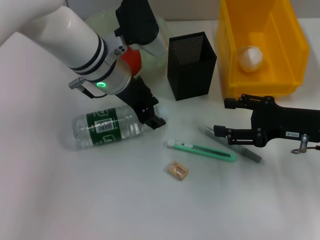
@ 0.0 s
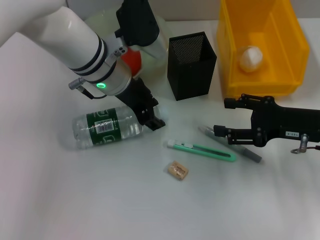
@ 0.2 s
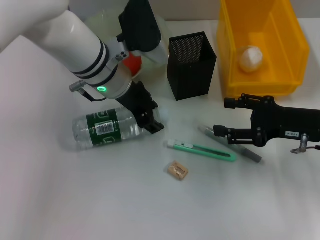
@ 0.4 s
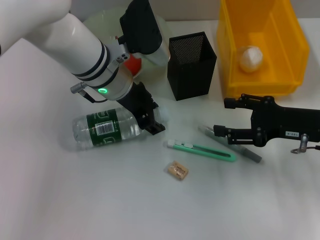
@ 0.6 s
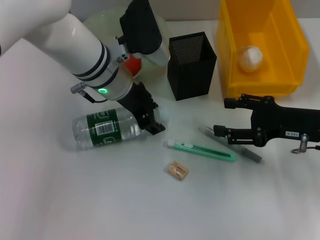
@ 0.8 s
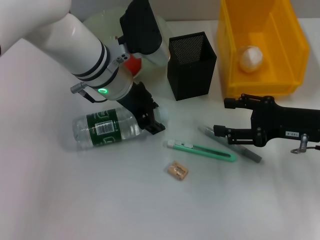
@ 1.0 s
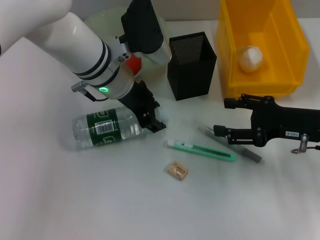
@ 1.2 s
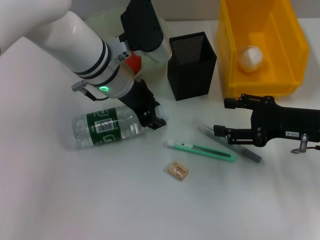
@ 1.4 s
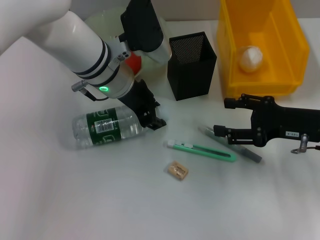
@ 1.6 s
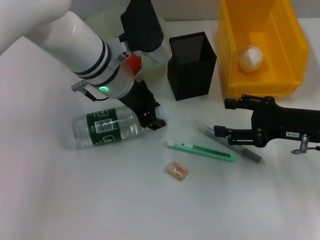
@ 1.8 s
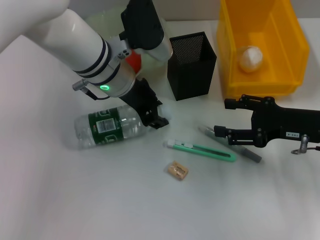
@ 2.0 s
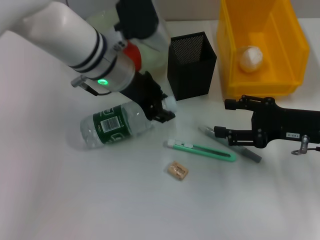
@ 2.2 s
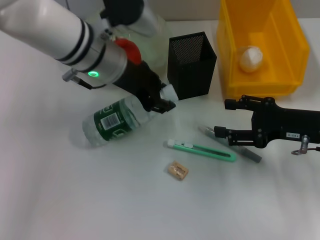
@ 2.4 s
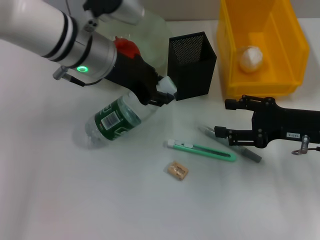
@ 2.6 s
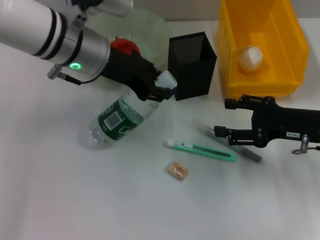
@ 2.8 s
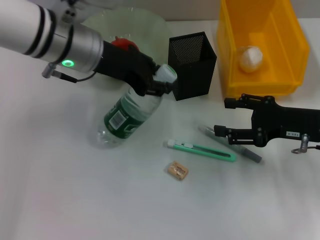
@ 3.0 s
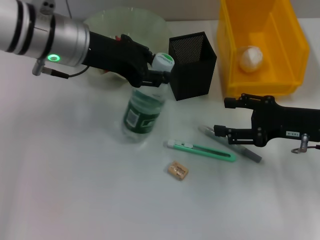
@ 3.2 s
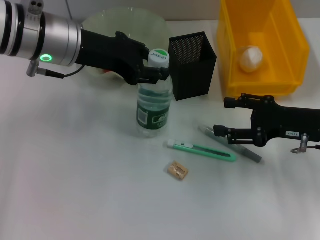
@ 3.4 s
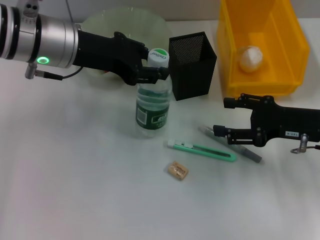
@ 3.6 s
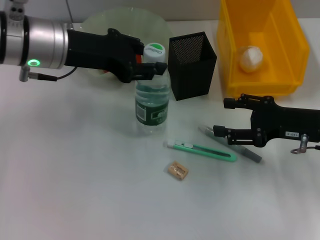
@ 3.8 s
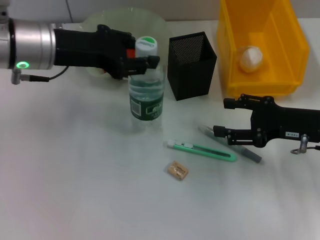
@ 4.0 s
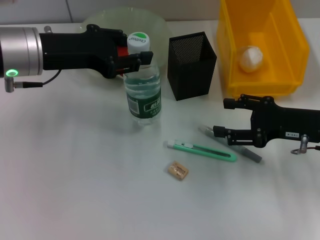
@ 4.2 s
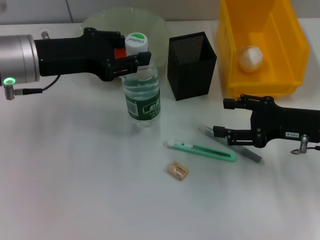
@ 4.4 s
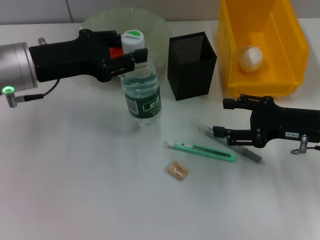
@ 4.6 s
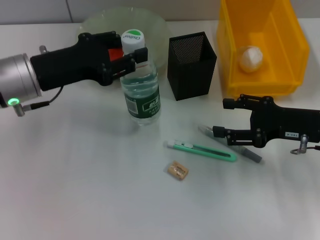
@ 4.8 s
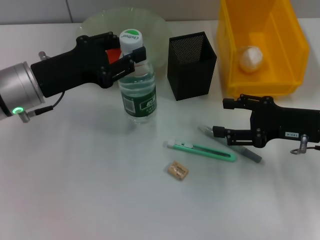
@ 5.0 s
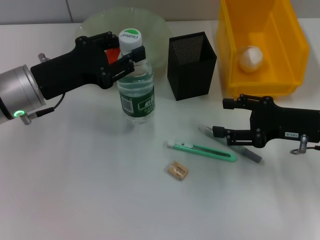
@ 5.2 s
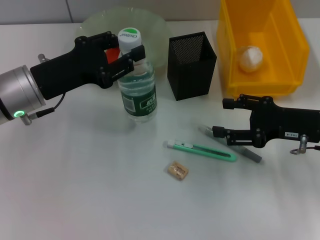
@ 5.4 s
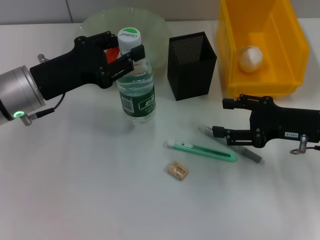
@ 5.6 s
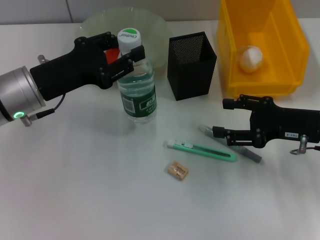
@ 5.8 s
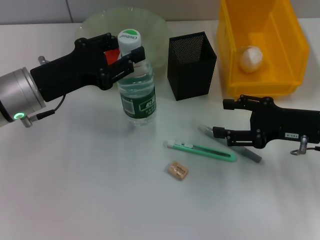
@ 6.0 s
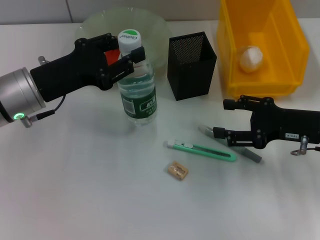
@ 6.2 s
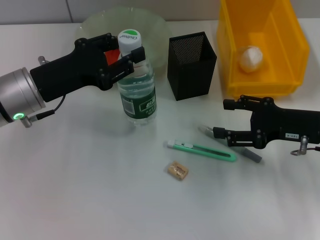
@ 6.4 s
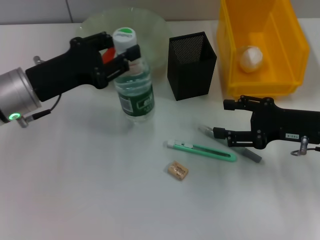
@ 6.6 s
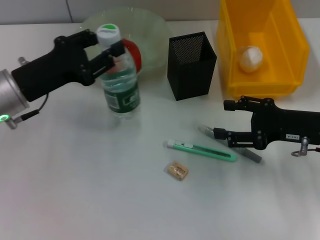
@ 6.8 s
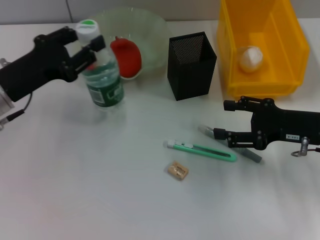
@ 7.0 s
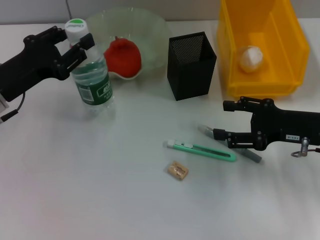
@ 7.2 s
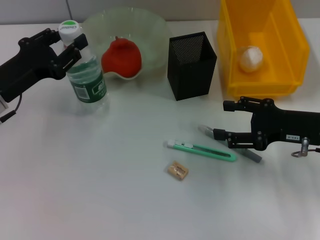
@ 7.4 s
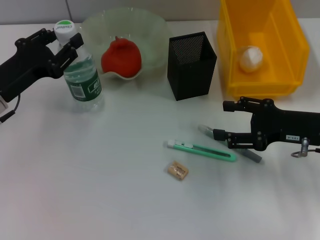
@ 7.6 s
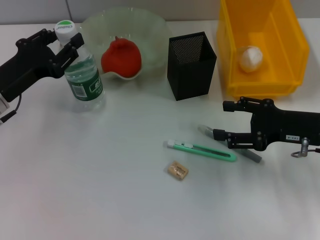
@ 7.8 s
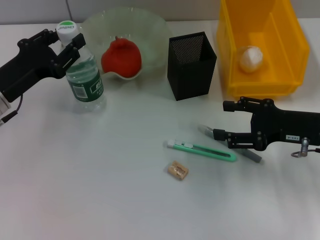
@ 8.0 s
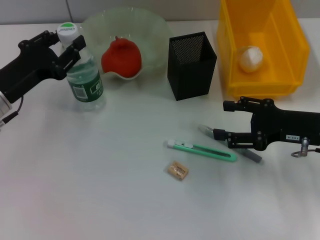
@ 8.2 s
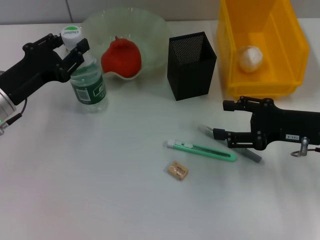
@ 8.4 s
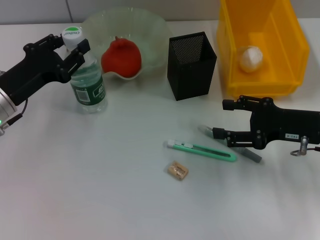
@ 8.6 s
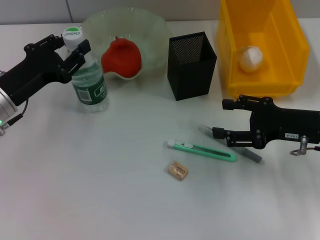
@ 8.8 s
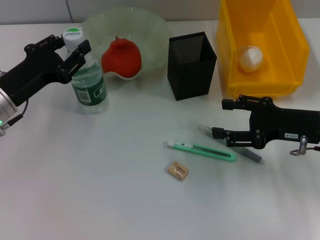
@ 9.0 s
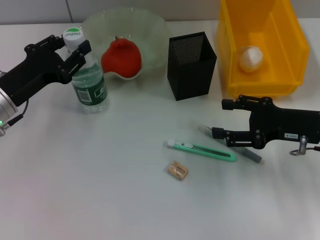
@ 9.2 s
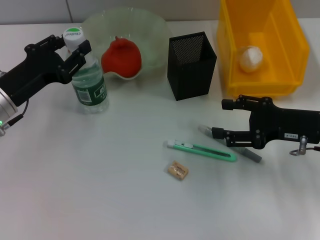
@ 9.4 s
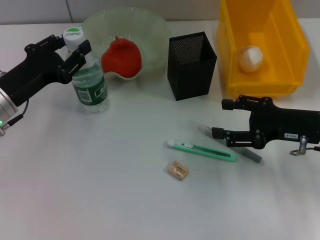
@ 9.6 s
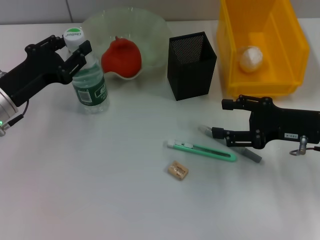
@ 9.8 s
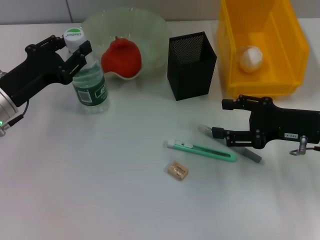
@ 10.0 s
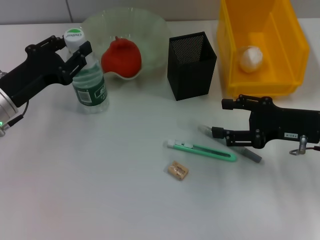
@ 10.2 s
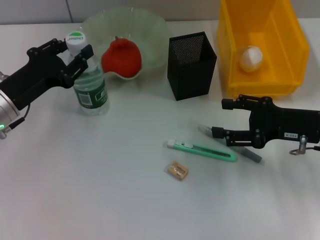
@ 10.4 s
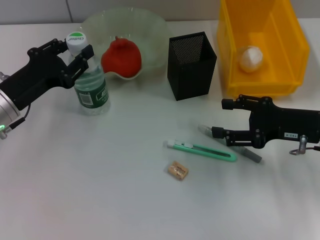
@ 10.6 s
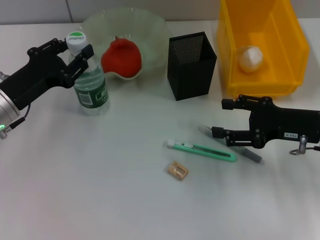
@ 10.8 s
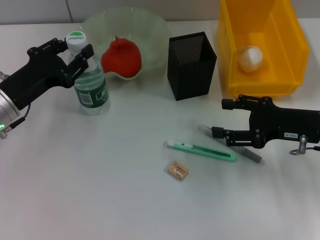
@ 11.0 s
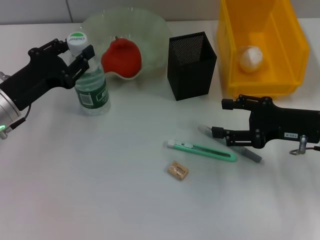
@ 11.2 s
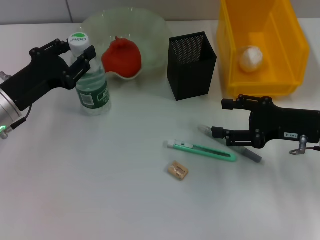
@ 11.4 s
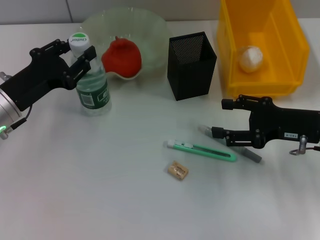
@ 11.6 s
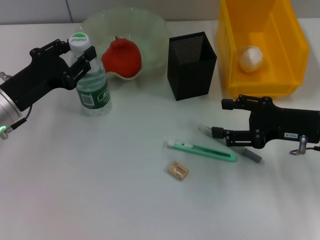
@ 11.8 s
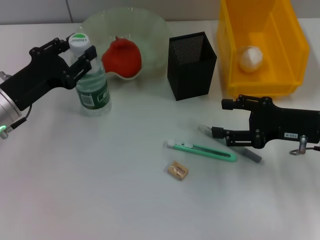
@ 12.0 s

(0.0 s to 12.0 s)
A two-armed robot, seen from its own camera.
0.0 s - 1.6 s: Neither gripper changes place.
1.6 s - 3.0 s: The left gripper goes roughly 5 cm upward.
3.0 s - 4.4 s: The left gripper goes roughly 10 cm to the left.
4.4 s - 6.0 s: The left gripper goes some 5 cm downward.
6.0 s - 7.6 s: The left gripper travels to the left by approximately 5 cm.
7.6 s - 9.0 s: The two grippers keep their place.
9.0 s - 12.0 s: Both grippers stay put.

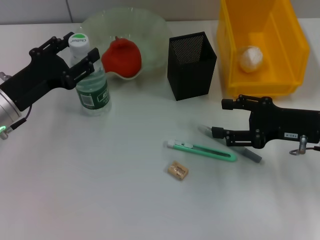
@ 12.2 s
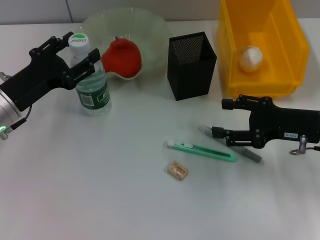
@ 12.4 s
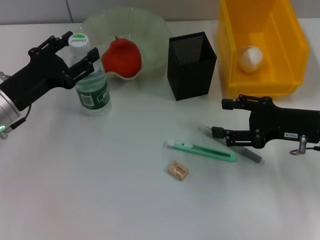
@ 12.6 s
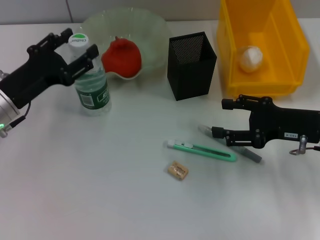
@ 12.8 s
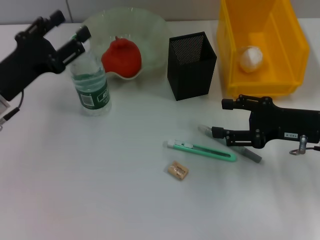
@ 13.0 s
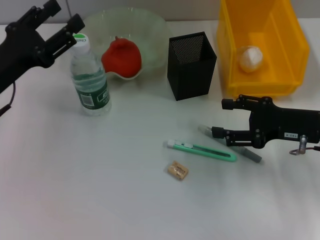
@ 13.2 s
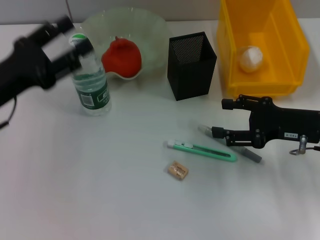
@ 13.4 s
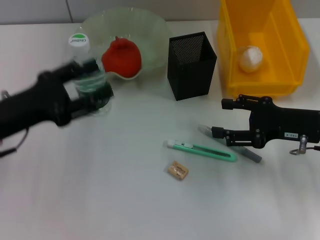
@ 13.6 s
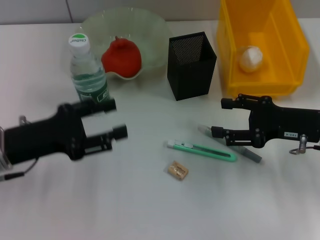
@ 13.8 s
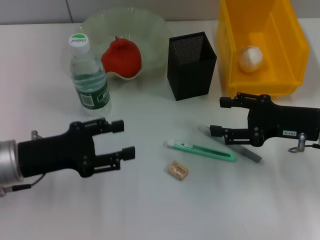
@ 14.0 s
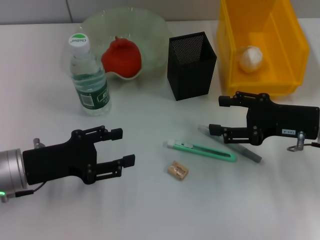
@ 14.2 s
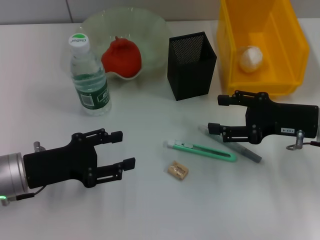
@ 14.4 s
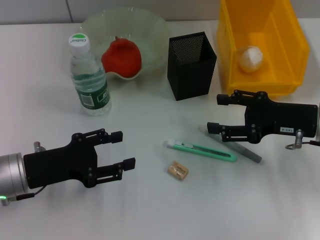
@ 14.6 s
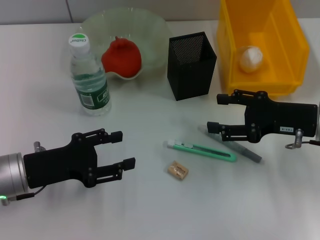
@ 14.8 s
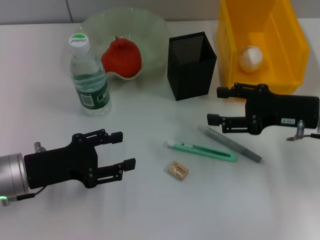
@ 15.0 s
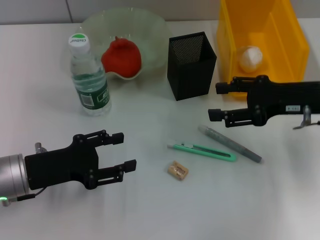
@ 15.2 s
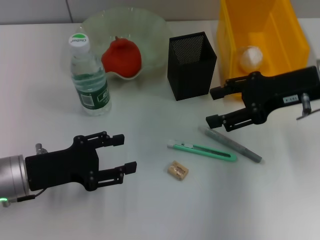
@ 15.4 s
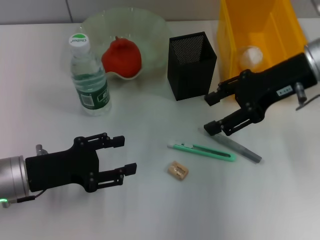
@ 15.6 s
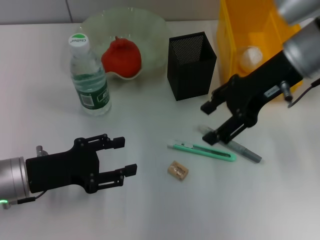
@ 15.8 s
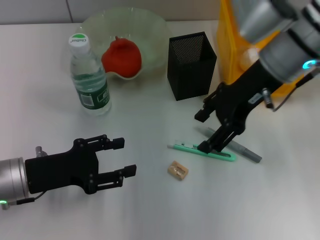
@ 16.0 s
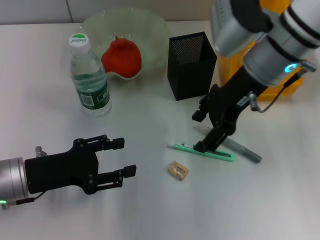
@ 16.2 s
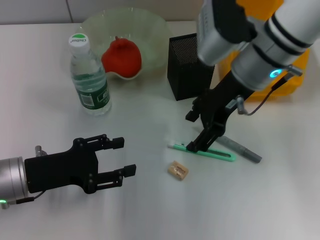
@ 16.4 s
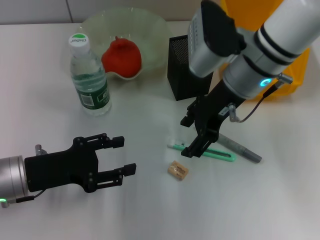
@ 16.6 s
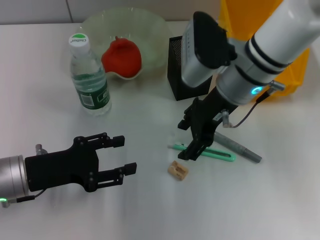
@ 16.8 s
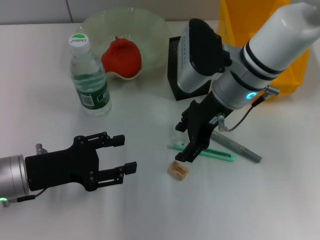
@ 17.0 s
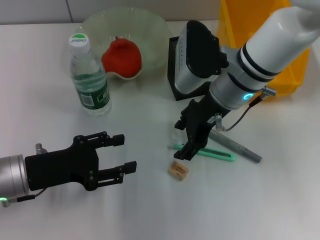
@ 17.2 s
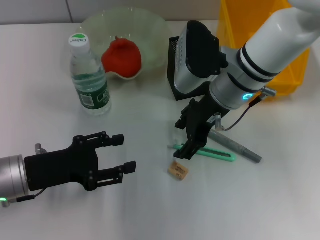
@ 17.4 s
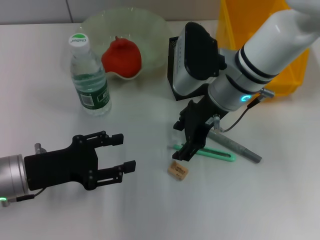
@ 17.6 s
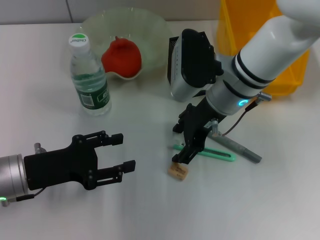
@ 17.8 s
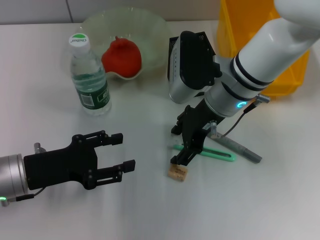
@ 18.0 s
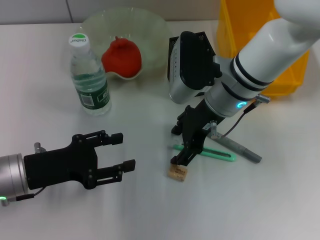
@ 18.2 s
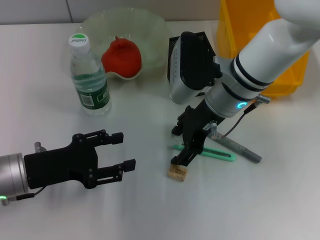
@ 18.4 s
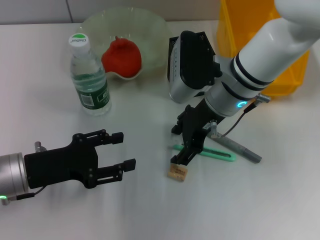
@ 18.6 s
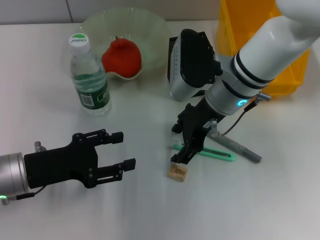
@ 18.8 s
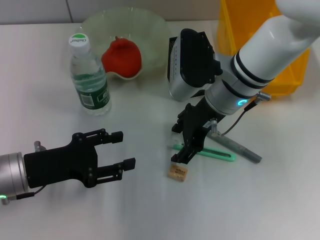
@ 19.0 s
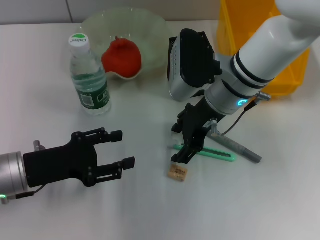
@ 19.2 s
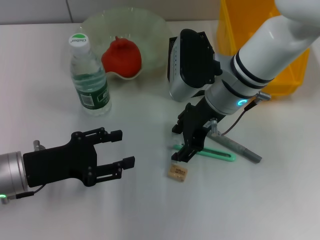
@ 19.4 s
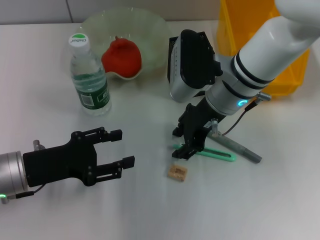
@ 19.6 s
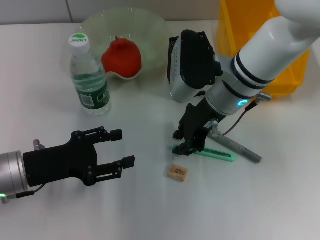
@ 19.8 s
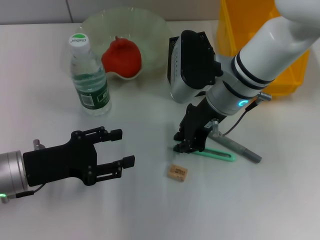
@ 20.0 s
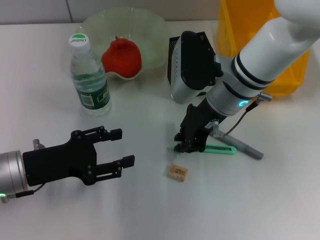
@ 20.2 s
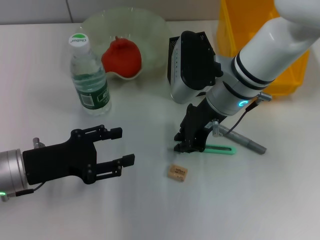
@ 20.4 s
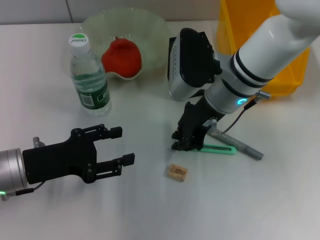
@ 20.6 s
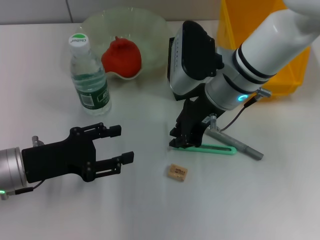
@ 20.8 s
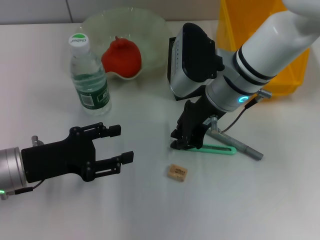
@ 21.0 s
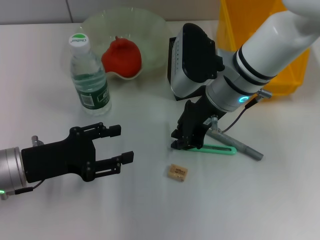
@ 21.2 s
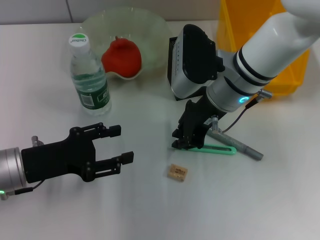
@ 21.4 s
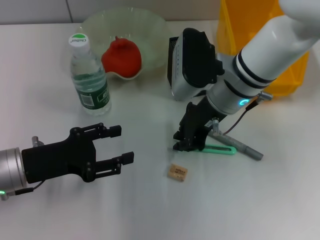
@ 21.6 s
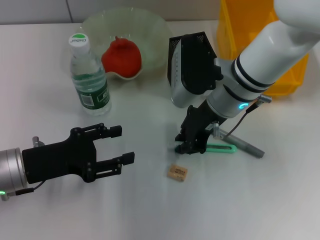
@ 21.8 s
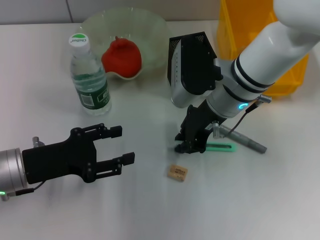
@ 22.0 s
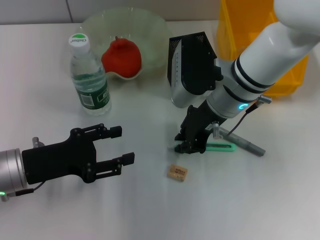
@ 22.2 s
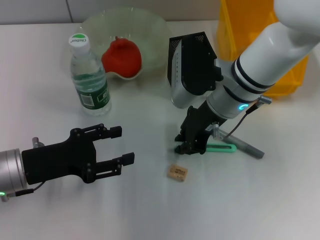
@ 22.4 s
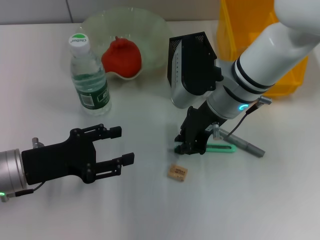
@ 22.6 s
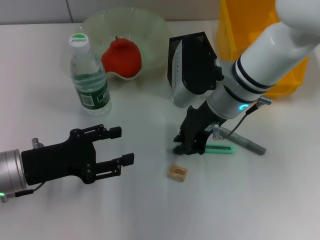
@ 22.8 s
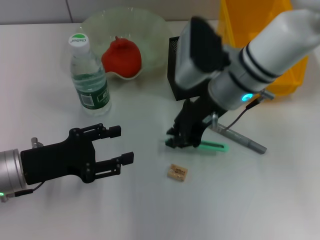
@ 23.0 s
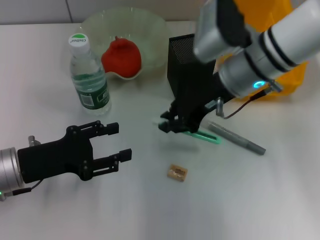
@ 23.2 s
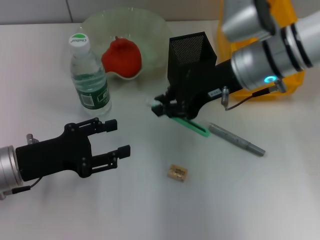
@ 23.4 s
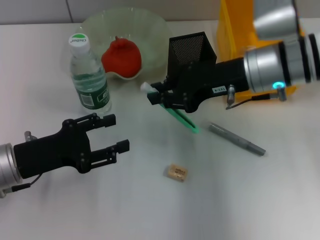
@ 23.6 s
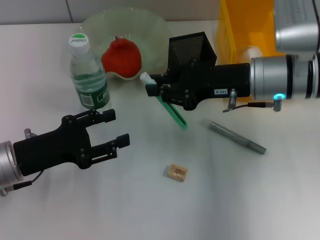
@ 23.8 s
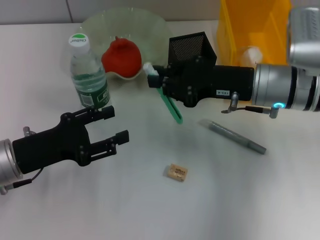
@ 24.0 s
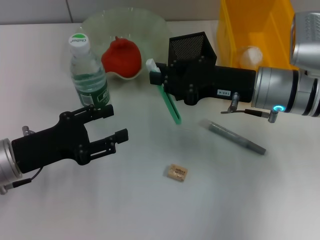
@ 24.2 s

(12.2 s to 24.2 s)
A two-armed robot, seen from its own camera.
Step, 12.8 s - 22.6 s: Grab the blue utility knife with the right hand.
12.2 s - 13.8 s: The left gripper ends up about 5 cm from where it was.
13.8 s - 15.2 s: The right gripper moves about 5 cm.
15.2 s - 16.6 s: The right gripper shifts roughly 15 cm to the left.
16.6 s - 18.2 s: The grippers stay close to where they were, moving slightly.
18.2 s - 19.8 s: The right gripper closes.
19.8 s - 21.2 s: The right gripper closes.
21.2 s - 22.6 s: The two grippers keep their place.
22.6 s - 24.2 s: The right gripper travels to the right by about 10 cm.
